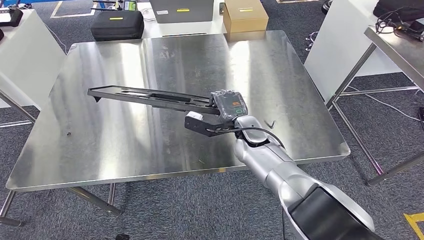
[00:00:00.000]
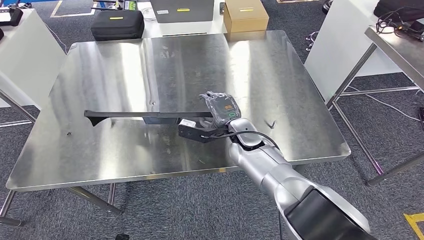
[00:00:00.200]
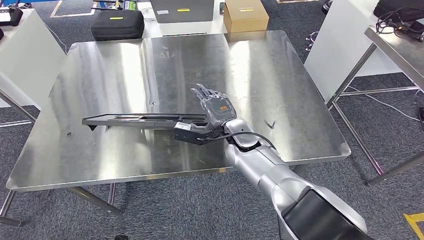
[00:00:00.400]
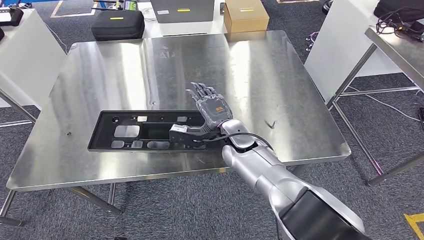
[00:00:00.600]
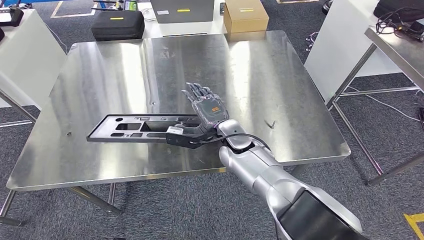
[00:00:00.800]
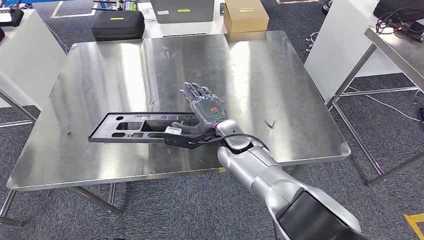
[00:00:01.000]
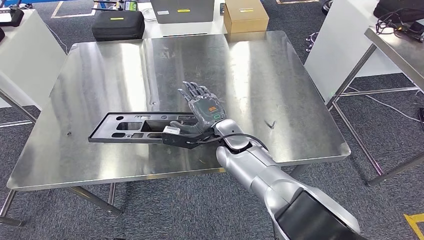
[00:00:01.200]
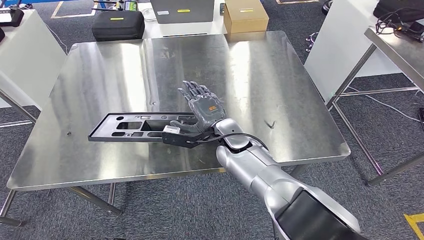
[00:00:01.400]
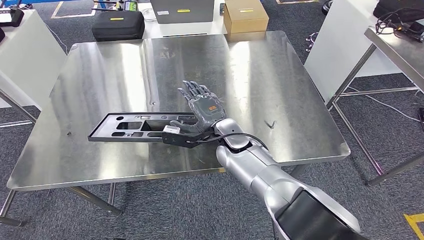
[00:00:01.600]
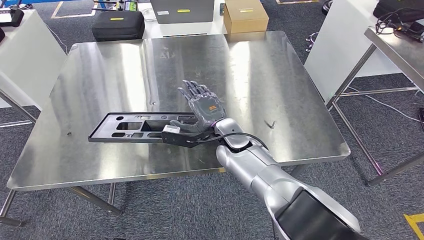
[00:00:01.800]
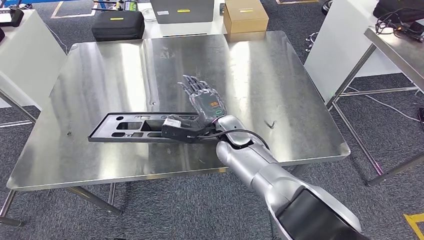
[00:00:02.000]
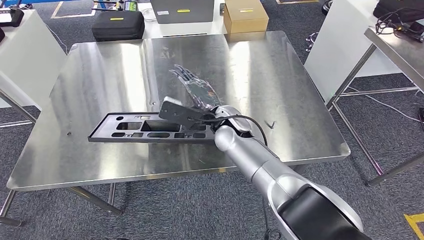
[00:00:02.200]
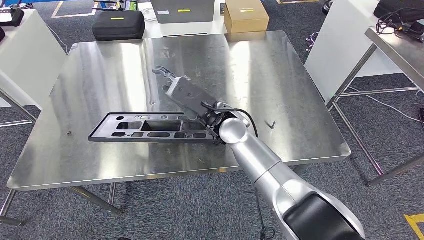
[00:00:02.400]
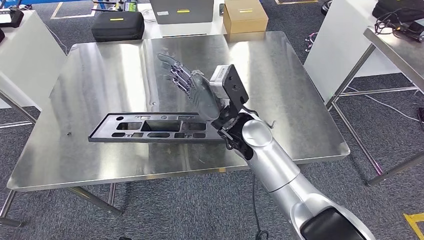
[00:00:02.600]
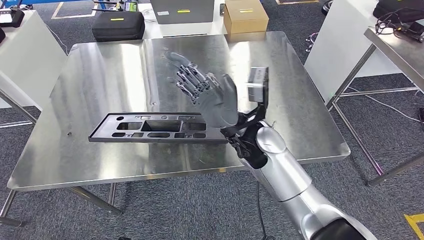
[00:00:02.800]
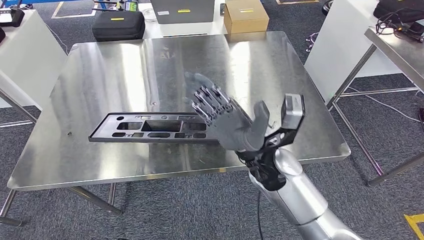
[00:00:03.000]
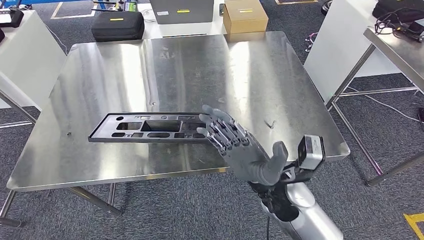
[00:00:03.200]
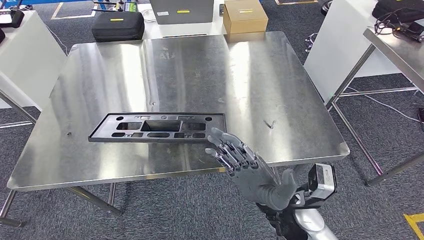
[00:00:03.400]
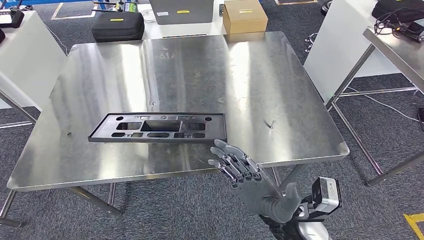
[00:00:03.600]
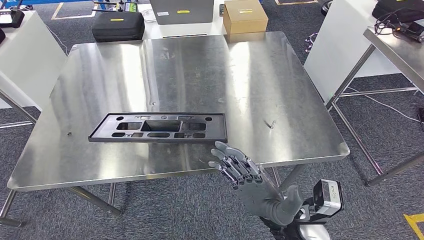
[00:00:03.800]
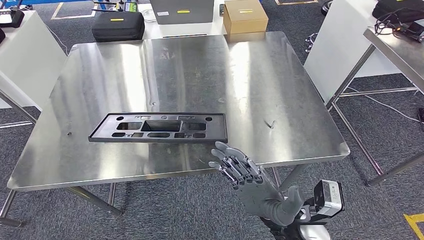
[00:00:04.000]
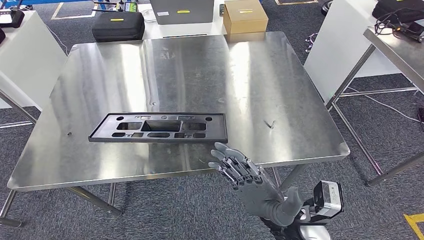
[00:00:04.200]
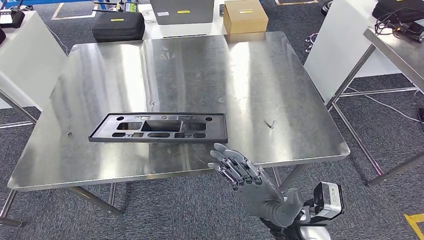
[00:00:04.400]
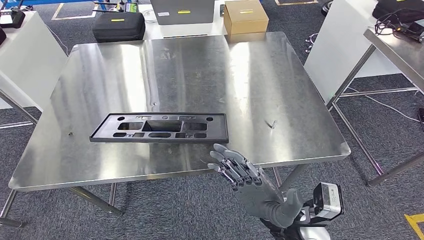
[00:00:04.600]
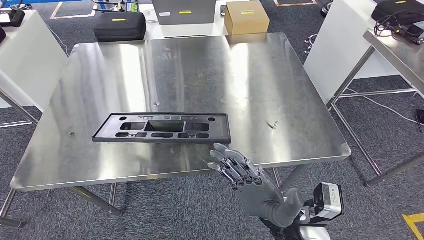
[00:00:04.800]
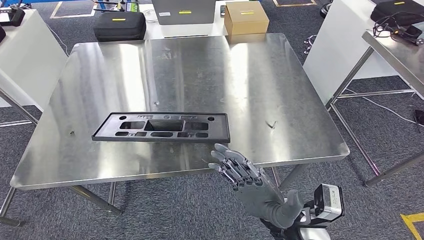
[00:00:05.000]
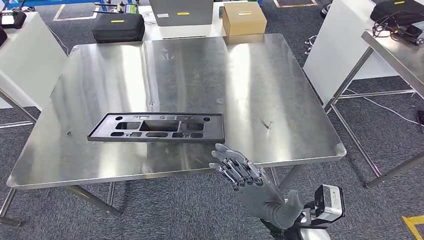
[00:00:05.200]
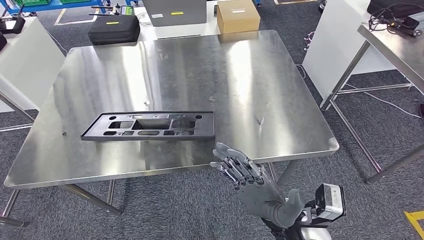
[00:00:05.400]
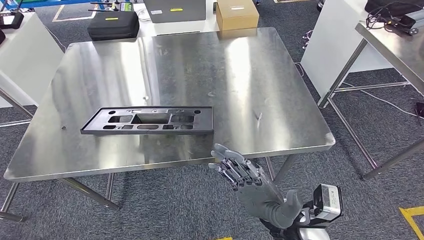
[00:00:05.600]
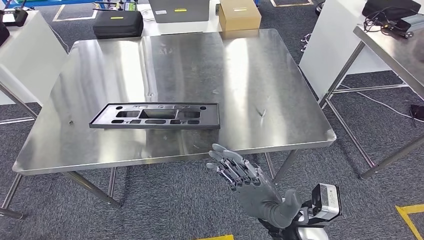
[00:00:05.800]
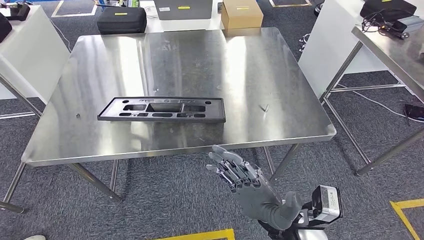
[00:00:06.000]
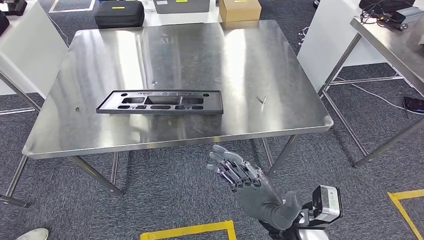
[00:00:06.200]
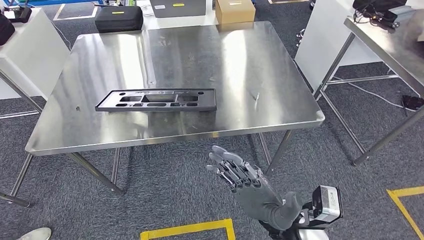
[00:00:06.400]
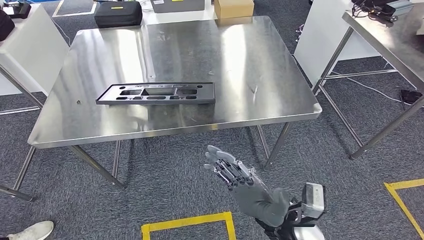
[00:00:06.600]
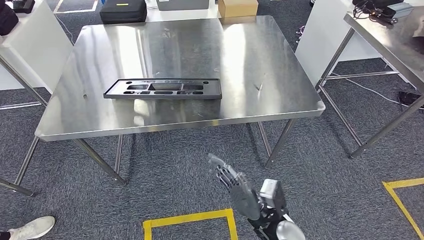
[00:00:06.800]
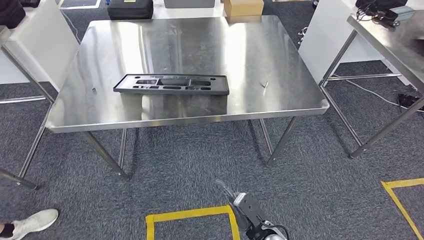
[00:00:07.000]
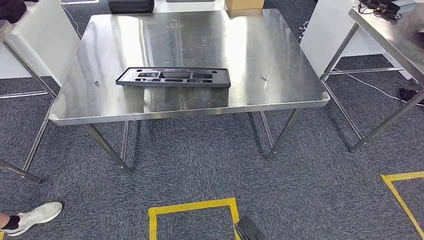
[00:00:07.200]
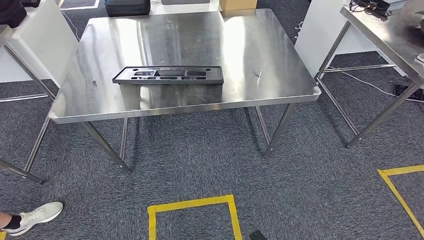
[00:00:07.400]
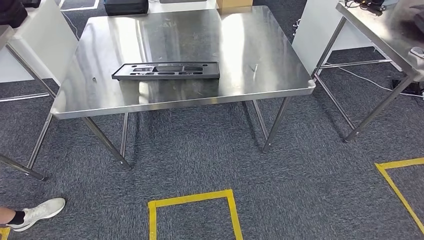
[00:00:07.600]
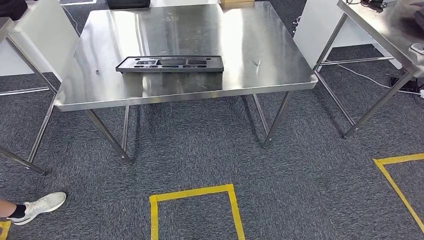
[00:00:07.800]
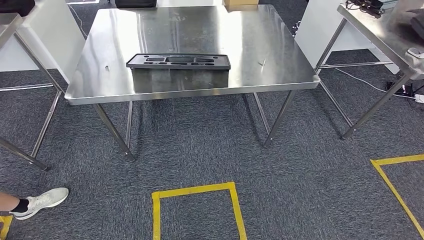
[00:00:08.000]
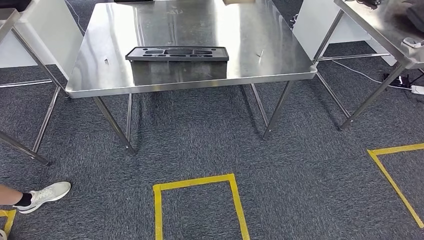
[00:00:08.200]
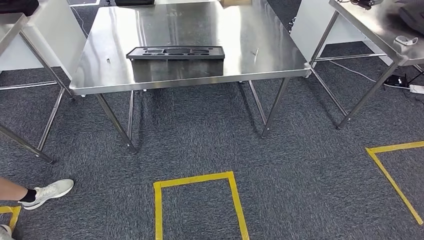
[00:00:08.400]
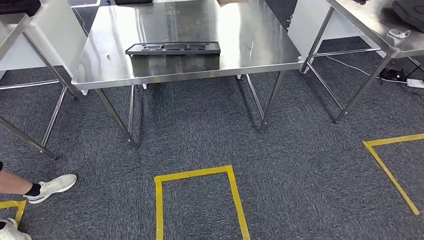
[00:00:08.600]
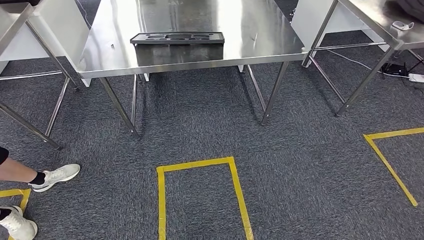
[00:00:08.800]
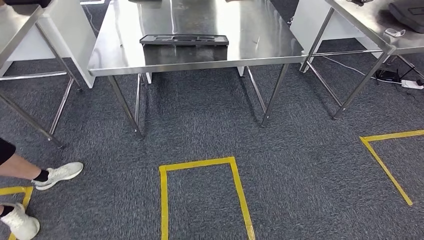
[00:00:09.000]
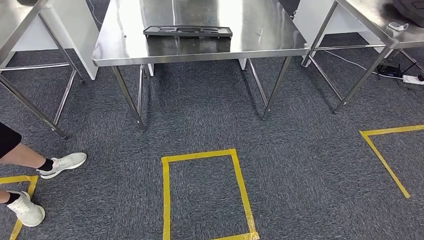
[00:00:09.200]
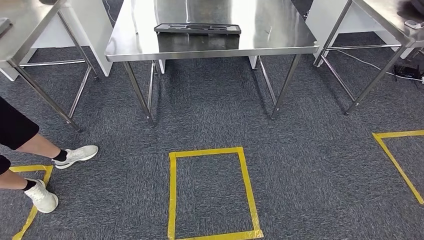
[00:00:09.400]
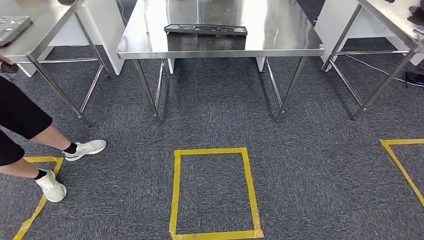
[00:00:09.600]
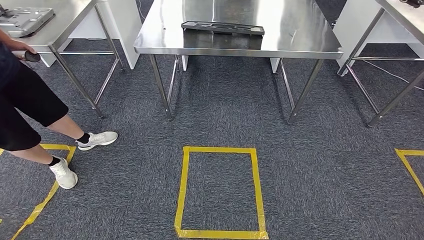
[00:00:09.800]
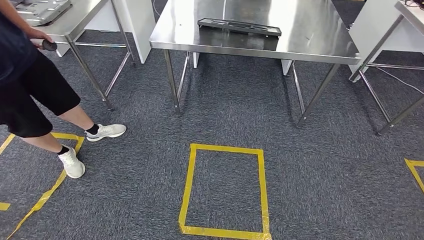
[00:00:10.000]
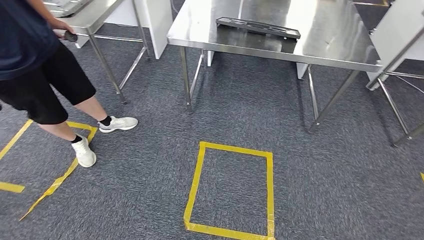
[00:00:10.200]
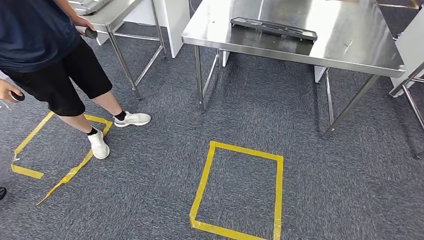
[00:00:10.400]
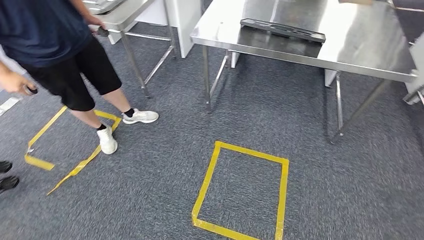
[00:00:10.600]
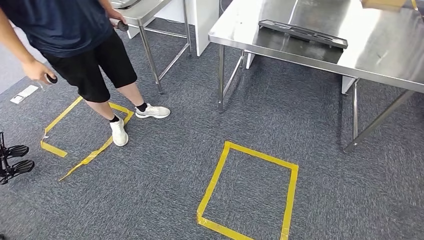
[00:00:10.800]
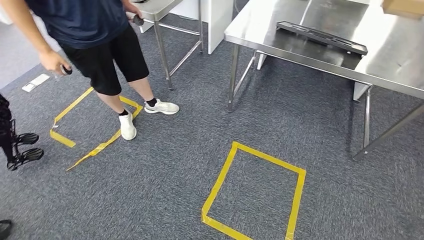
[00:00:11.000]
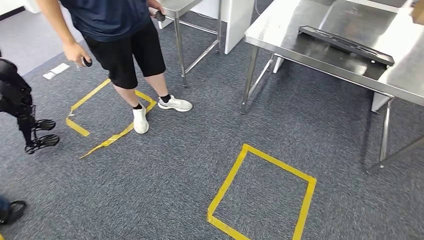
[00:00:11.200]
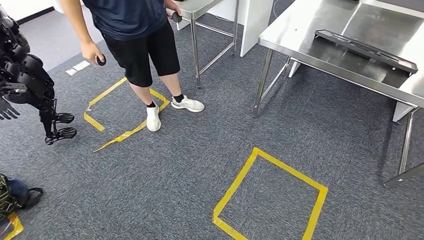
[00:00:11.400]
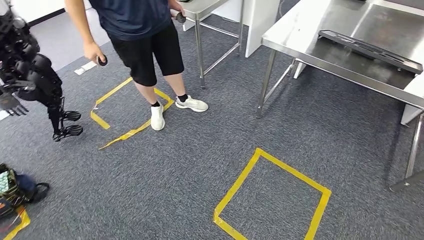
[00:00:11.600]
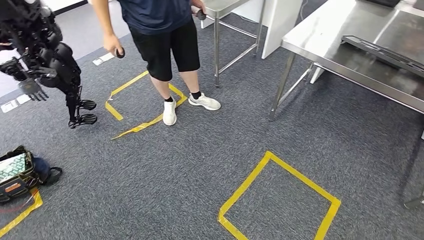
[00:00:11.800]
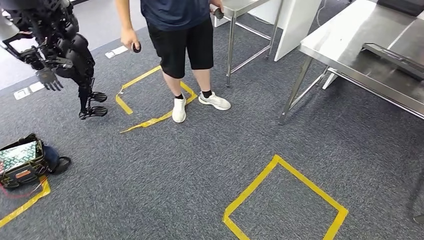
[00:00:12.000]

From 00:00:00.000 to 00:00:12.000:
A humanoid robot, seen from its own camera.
Step, from 00:00:00.000 to 00:00:03.400: Insert the large material into the corresponding slot on the workbench.
From 00:00:00.000 to 00:00:01.600: The right hand changes place by some 5 cm.
From 00:00:01.600 to 00:00:03.000: The right hand goes some 10 cm backward, to the right and upward.
From 00:00:03.000 to 00:00:04.400: The right hand travels backward, downward and to the right by roughly 15 cm.

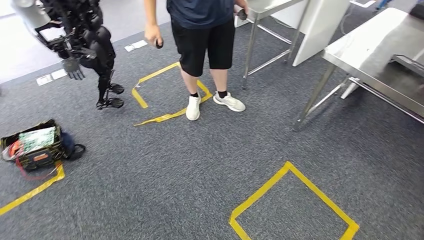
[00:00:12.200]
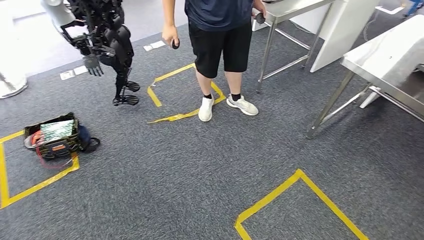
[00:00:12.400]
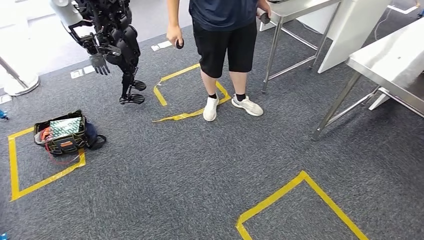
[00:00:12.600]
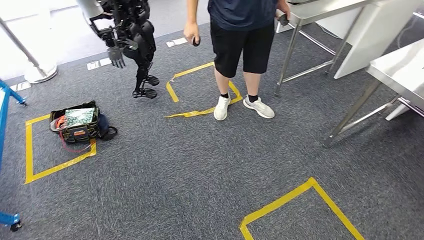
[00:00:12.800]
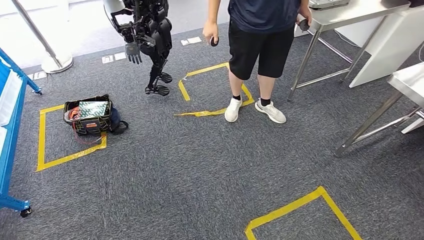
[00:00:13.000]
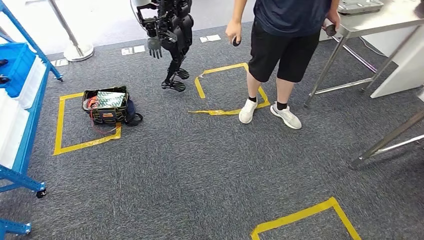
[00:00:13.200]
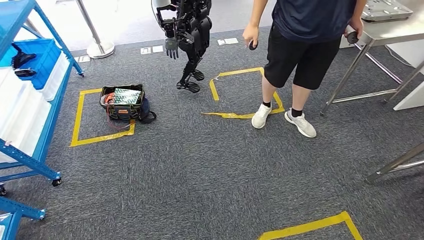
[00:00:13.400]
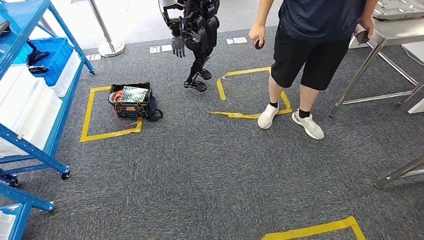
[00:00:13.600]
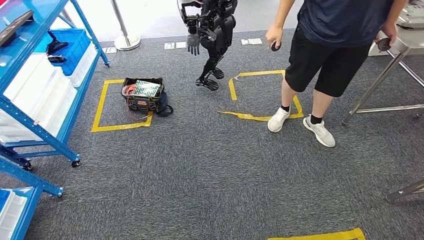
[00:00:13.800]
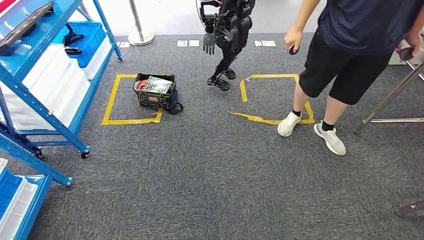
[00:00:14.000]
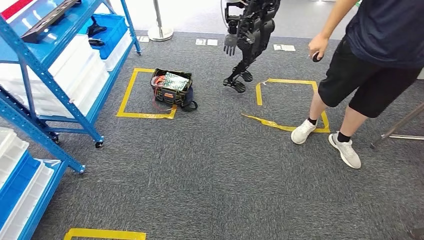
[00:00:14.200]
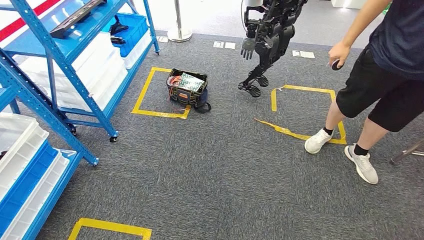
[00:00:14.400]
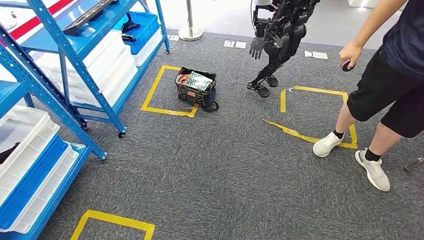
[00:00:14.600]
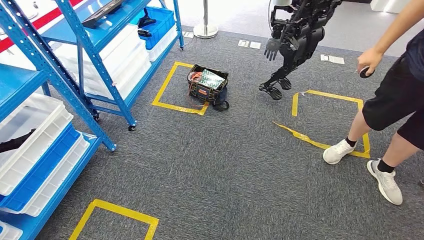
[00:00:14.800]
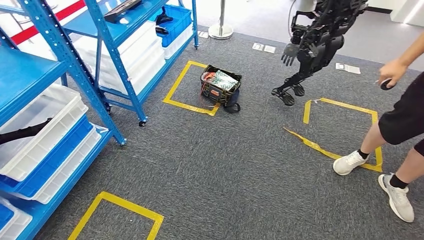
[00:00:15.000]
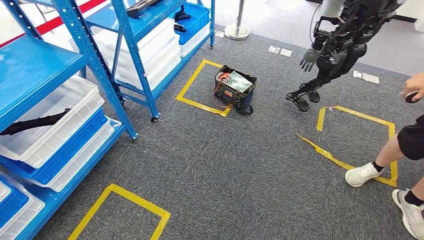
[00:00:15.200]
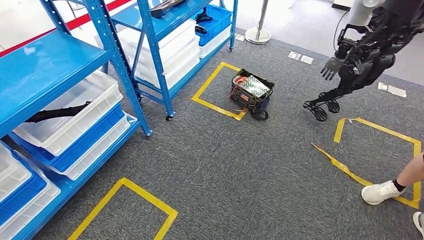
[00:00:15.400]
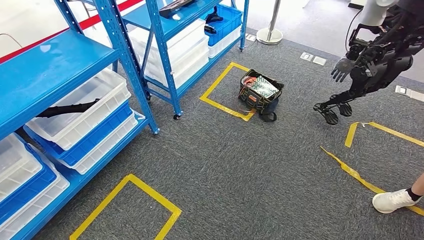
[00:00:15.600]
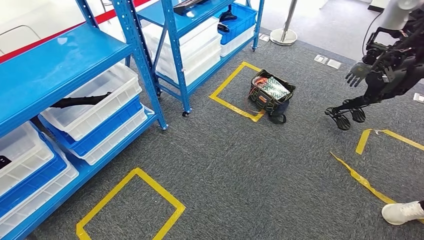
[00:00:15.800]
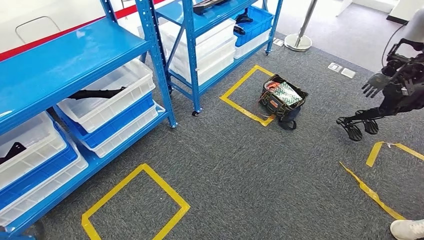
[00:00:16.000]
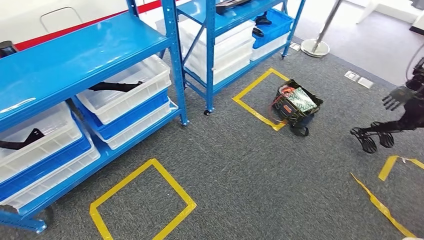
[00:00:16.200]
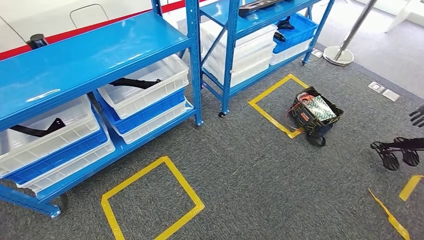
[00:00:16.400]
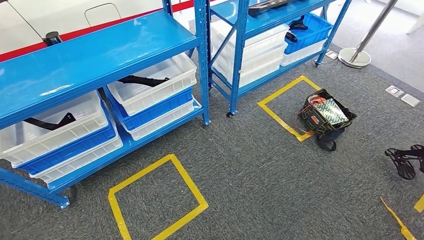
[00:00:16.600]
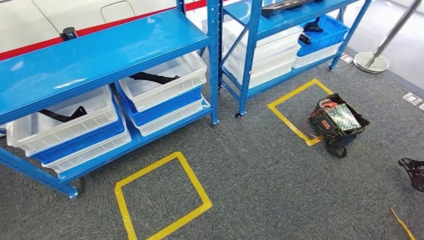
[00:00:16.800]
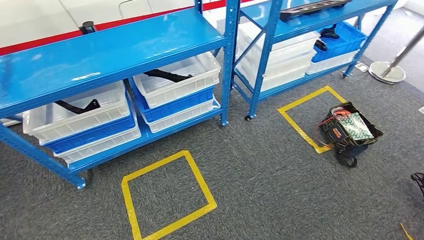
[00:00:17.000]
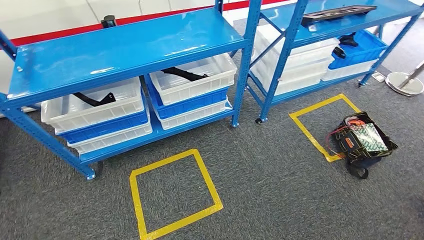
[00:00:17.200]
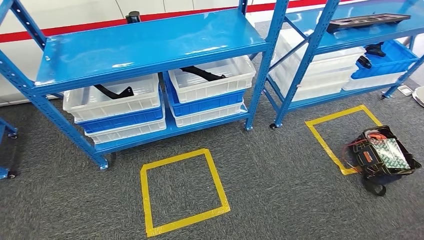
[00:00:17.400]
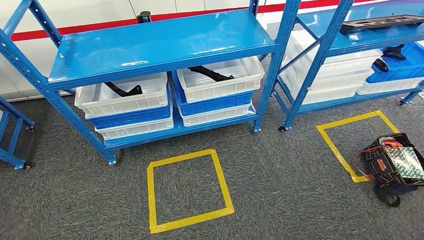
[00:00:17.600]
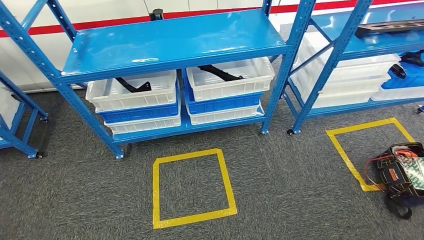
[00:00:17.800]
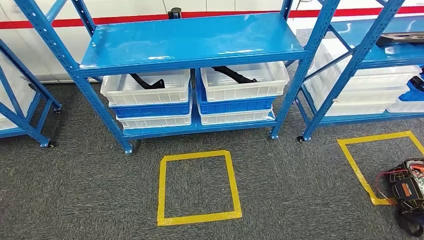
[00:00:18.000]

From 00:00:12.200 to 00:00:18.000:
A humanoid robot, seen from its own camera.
Step, from 00:00:12.200 to 00:00:17.600: Move to the initial position of the shelf.
